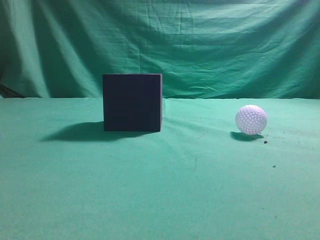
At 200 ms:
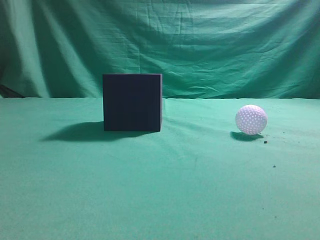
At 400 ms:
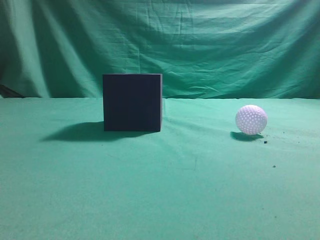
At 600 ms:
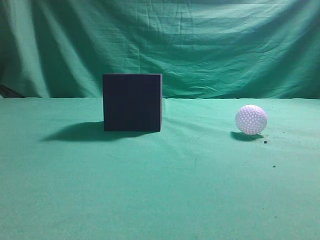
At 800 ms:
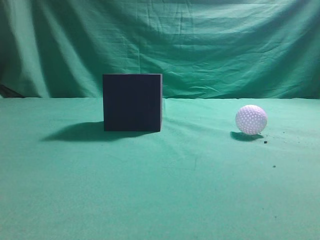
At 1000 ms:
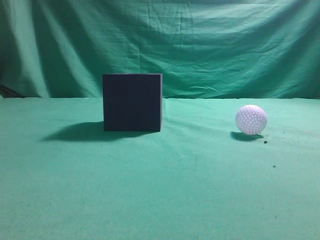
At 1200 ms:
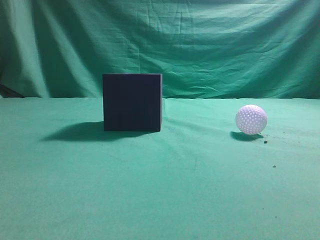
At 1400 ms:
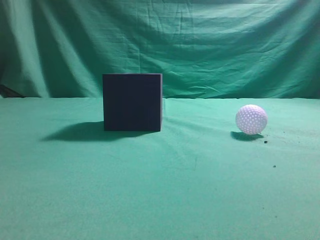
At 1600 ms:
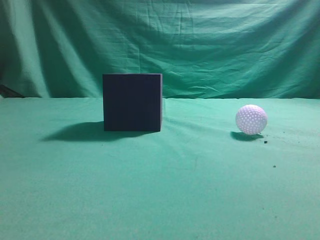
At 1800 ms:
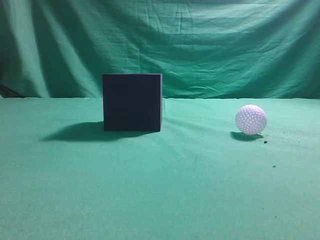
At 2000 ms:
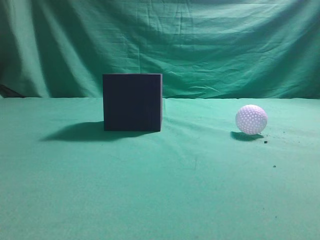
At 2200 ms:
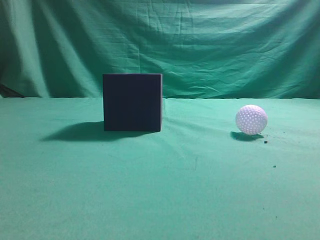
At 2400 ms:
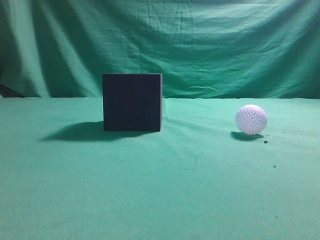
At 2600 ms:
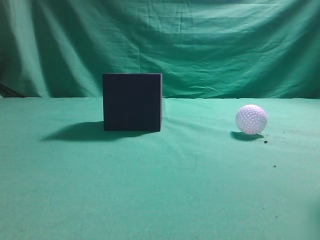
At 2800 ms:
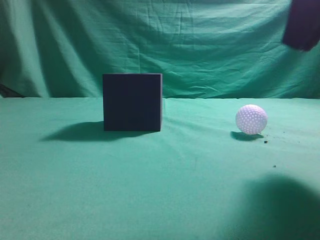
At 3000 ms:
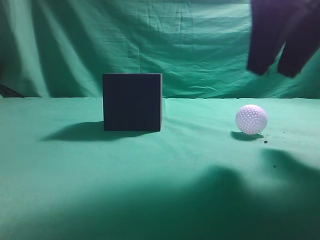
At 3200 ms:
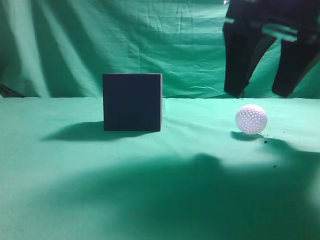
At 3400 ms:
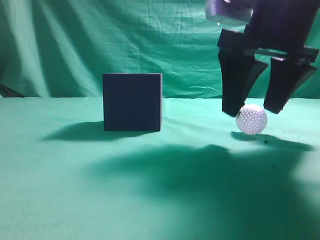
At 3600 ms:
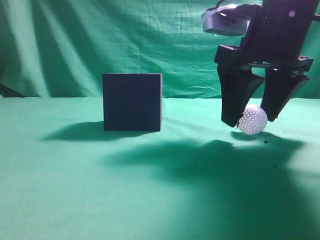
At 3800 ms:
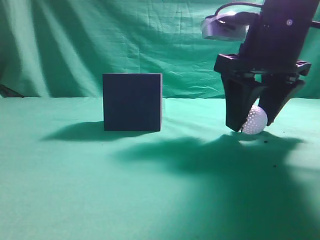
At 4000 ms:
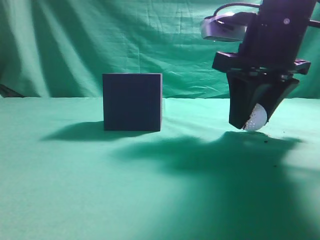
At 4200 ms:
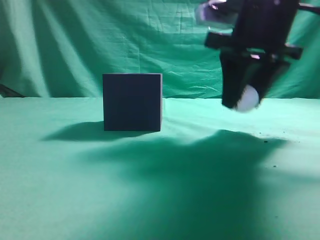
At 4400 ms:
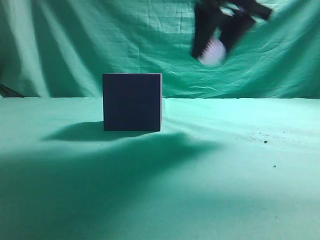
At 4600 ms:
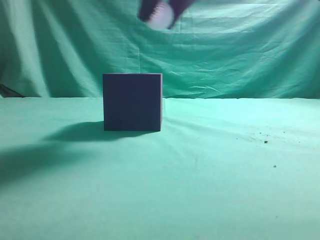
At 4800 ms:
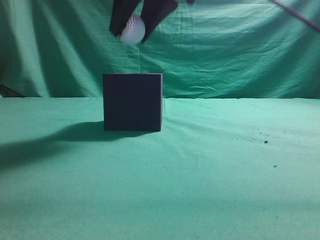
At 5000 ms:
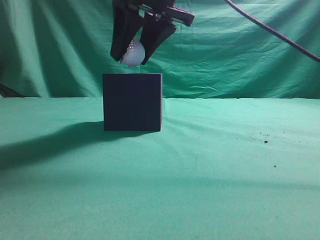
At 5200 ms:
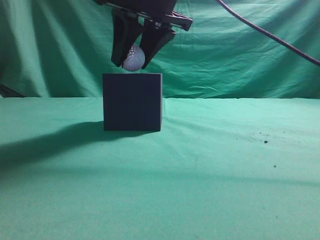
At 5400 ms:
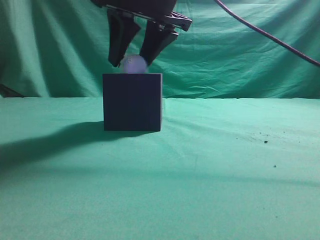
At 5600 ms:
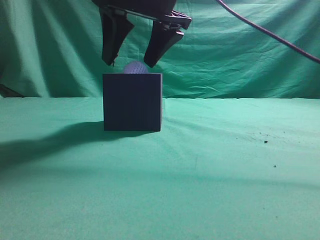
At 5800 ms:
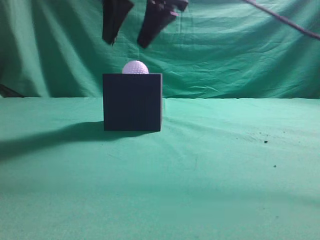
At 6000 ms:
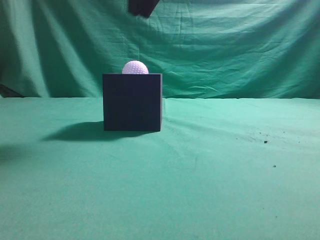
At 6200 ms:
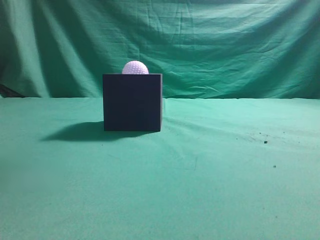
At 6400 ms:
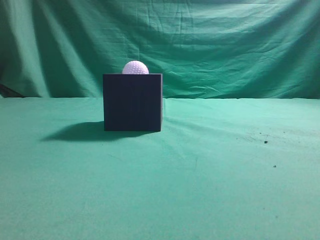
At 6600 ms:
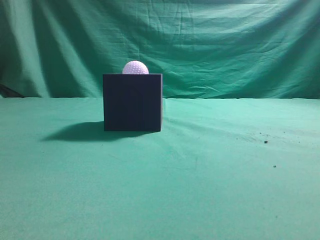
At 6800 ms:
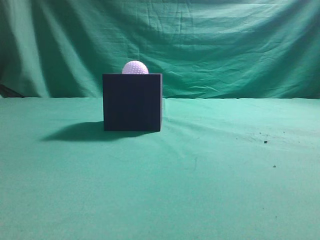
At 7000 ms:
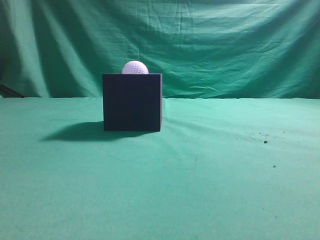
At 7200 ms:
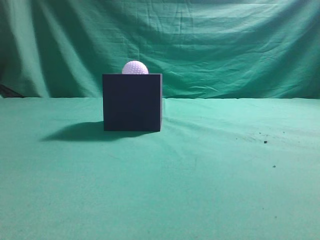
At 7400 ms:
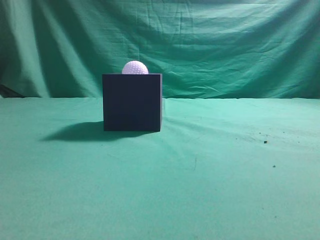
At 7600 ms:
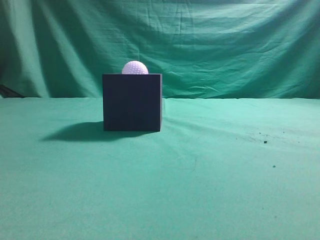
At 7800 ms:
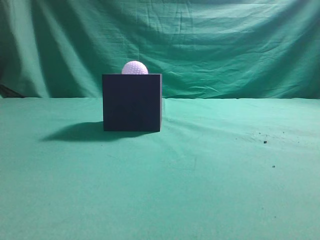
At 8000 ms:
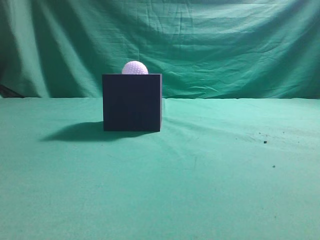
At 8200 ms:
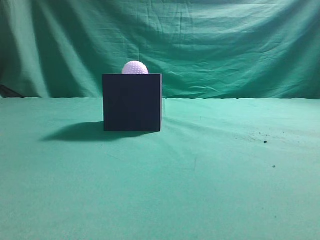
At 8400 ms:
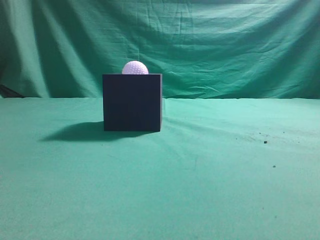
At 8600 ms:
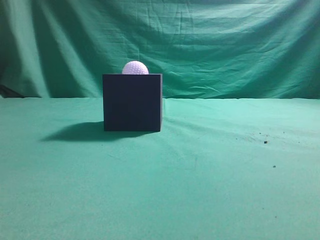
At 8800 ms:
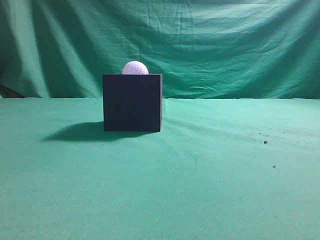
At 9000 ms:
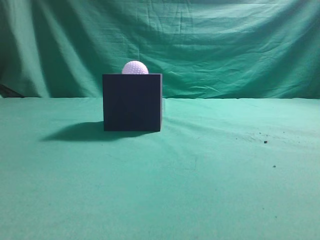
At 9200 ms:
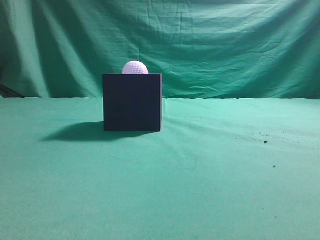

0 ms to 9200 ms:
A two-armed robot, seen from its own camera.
Task of the whole recording: Pick up the ball and place it in the circular groove above the cube.
Step, 0 ms to 4200 ms: Grasp the sphere on the table.
Step, 4400 ms to 5800 ms: Place the sphere into the sphere-shaped recess.
1600 ms to 3000 ms: The right gripper shifts about 25 cm forward and to the left, and opens its fingers.
3000 ms to 4600 ms: The right gripper goes approximately 15 cm to the left, forward and upward.
4600 ms to 6200 ms: The right gripper shifts by approximately 5 cm, and closes.

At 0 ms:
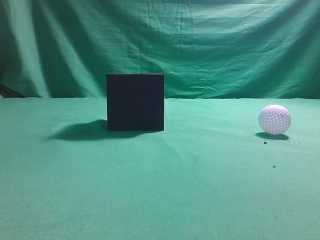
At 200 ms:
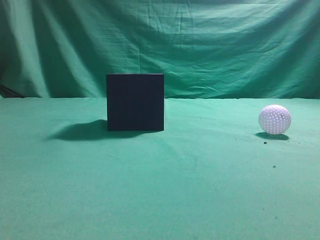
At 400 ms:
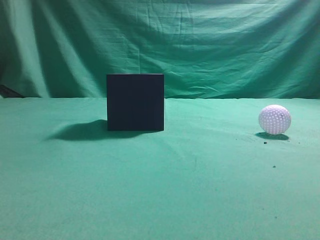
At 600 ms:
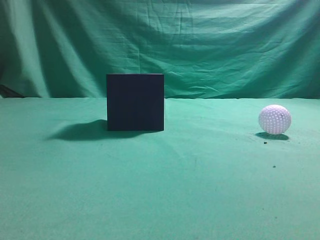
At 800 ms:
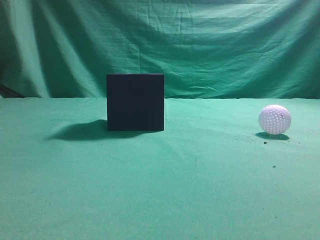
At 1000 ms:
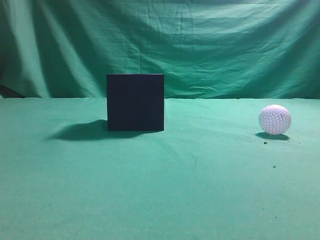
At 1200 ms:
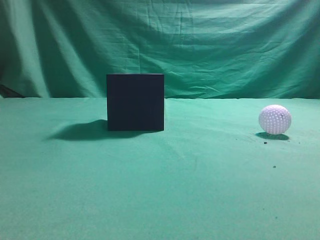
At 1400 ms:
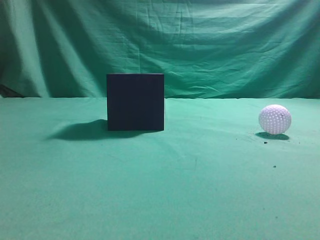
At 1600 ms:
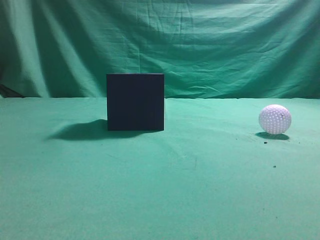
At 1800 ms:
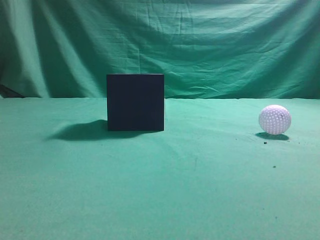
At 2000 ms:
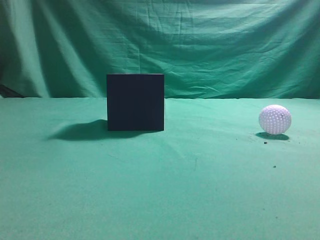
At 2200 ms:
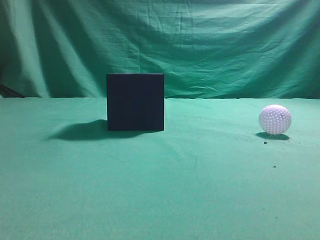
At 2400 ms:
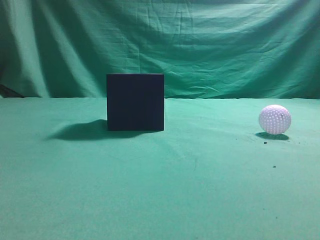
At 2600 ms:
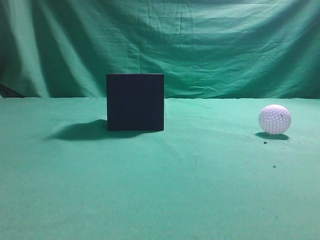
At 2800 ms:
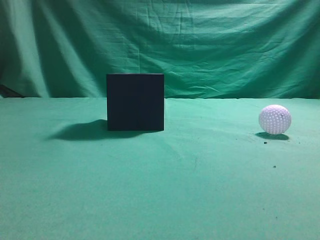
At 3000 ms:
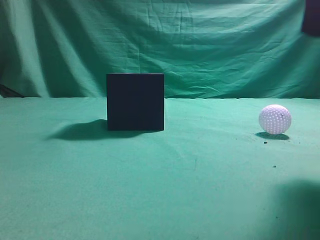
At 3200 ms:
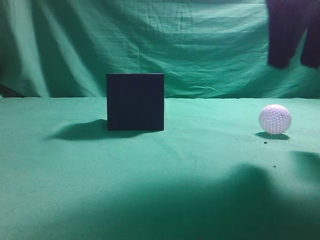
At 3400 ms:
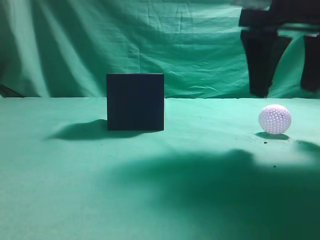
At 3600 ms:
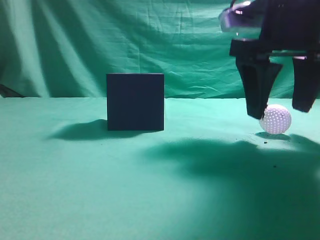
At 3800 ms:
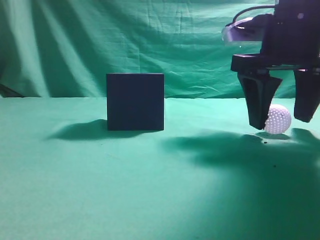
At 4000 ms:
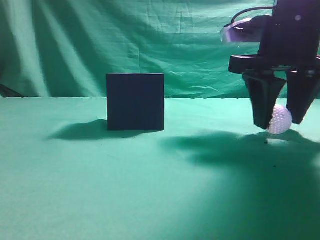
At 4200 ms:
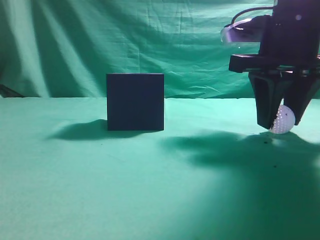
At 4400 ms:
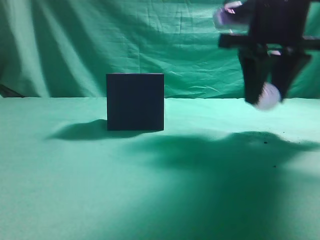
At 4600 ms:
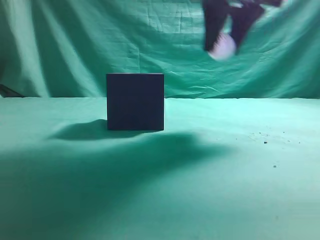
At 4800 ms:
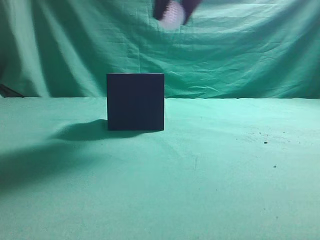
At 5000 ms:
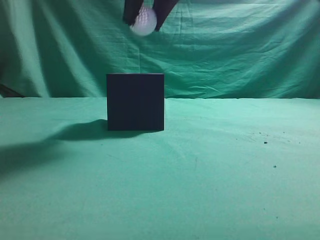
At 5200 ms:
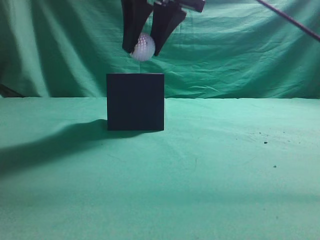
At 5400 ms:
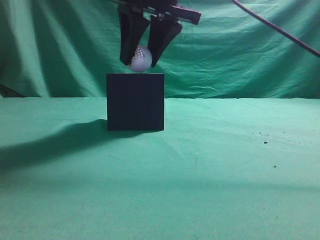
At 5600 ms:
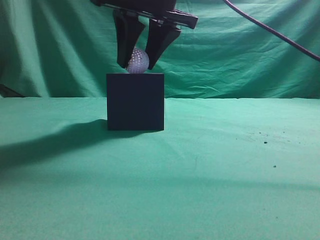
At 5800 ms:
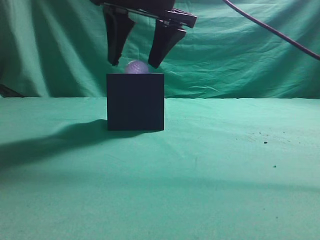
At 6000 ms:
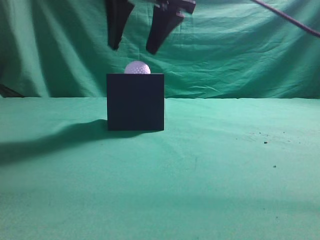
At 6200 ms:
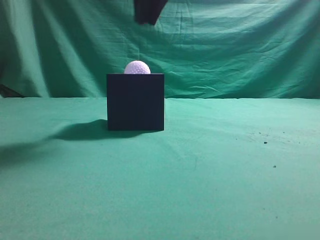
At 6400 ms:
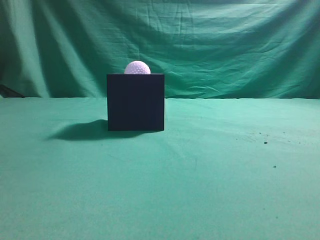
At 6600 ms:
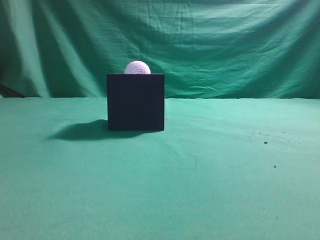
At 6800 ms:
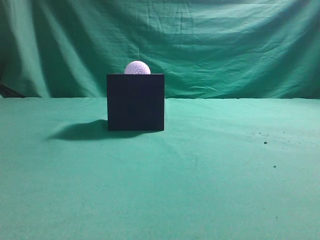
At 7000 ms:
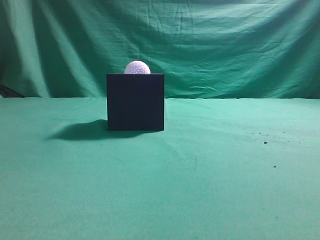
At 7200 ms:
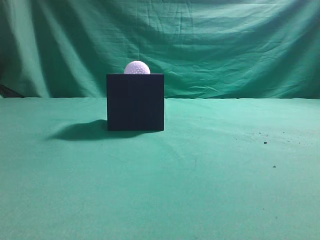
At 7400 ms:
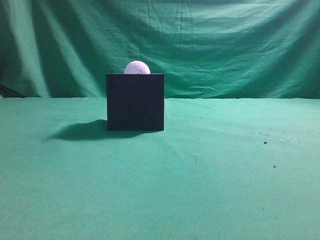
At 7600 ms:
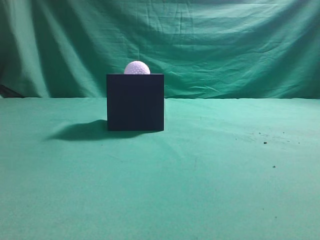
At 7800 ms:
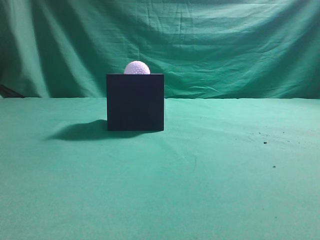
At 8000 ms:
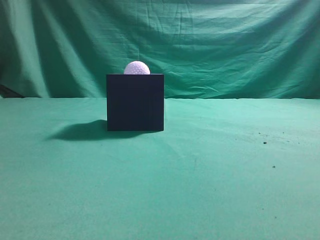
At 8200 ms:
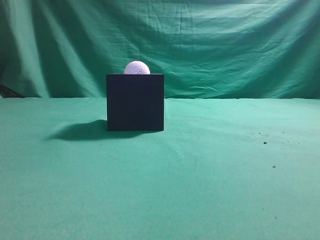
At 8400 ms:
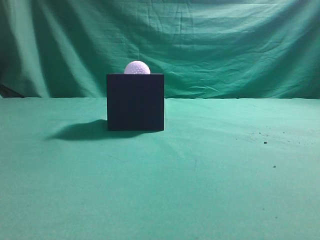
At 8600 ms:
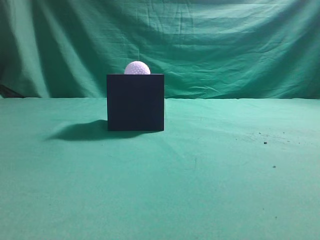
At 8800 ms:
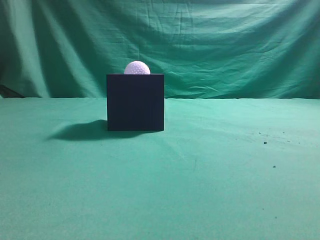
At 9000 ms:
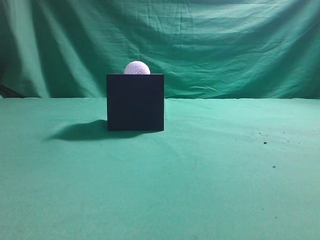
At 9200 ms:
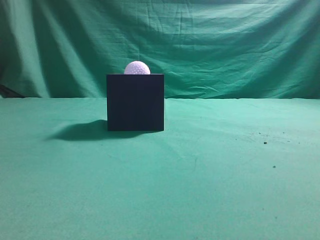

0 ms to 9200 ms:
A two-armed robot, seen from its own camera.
Task of the whole recording: Pick up the ball and place it in the circular groove above the cube.
Step, 0 ms to 3600 ms: Grasp the sphere on the table.
Step, 3800 ms to 4800 ms: Place the sphere into the sphere-shaped recess.
1600 ms to 3000 ms: The right gripper heads forward and to the left, covering about 20 cm.
3000 ms to 4600 ms: The right gripper heads forward and to the left, covering approximately 15 cm, and opens its fingers.
4600 ms to 6200 ms: The right gripper is displaced to the left by some 10 cm, and opens, then closes again.
6200 ms to 7600 ms: The right gripper shifts some 35 cm backward and to the right.
